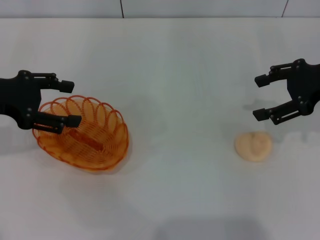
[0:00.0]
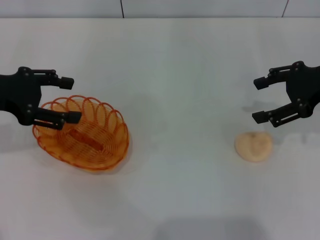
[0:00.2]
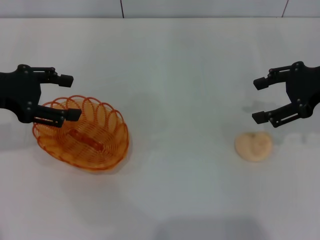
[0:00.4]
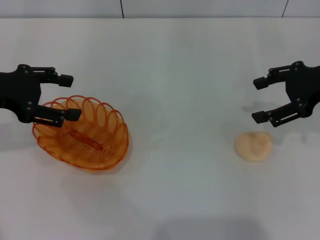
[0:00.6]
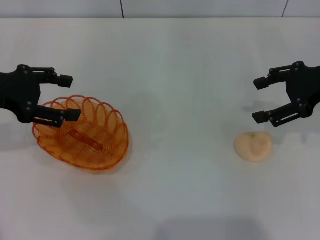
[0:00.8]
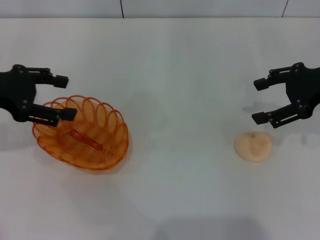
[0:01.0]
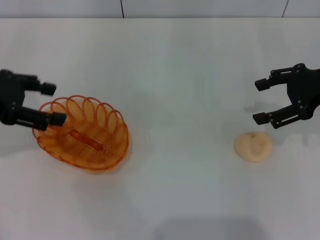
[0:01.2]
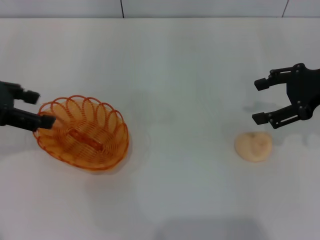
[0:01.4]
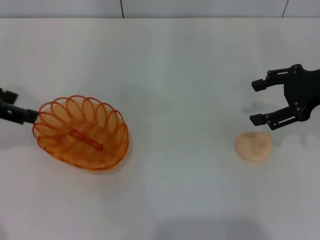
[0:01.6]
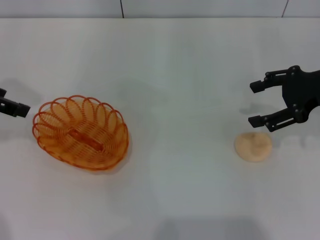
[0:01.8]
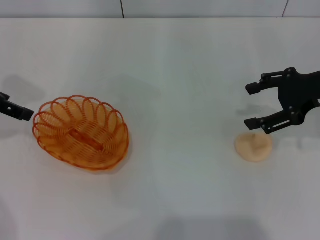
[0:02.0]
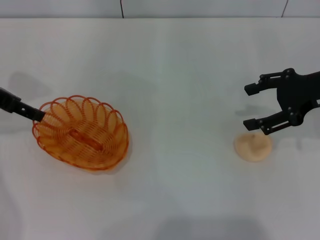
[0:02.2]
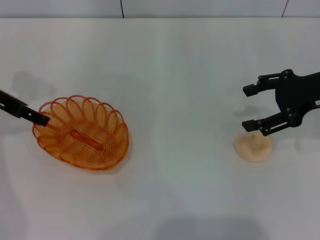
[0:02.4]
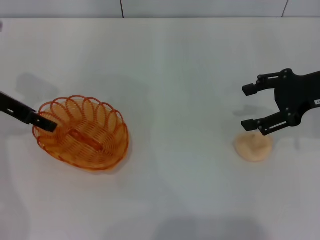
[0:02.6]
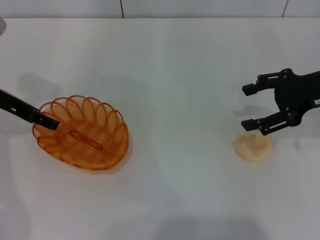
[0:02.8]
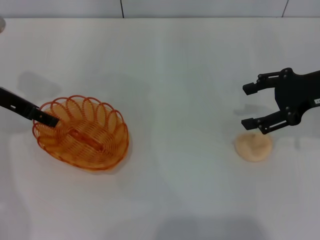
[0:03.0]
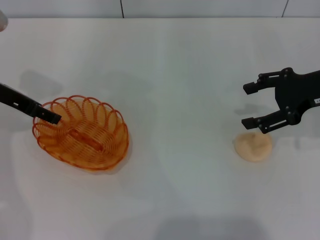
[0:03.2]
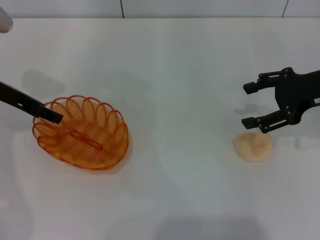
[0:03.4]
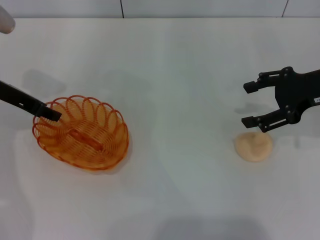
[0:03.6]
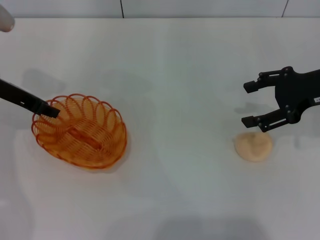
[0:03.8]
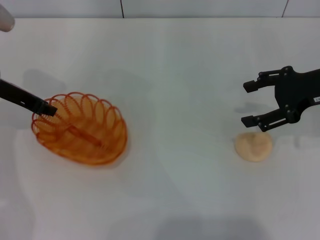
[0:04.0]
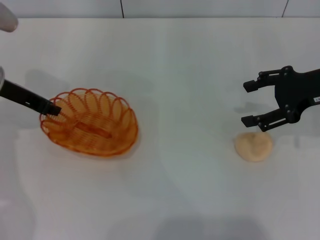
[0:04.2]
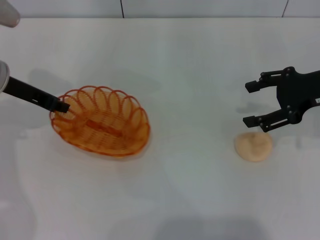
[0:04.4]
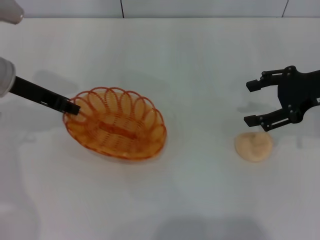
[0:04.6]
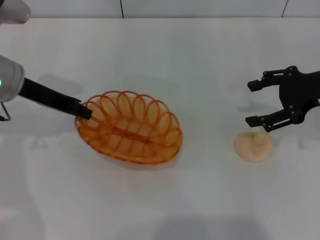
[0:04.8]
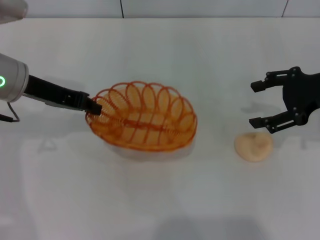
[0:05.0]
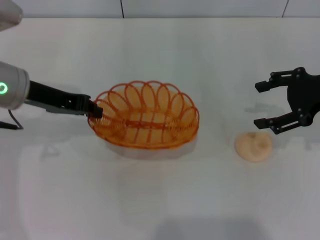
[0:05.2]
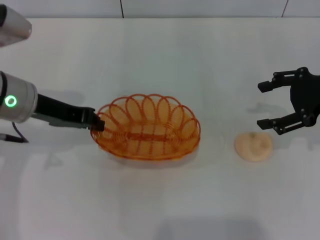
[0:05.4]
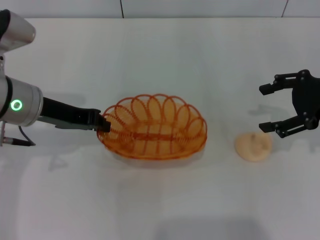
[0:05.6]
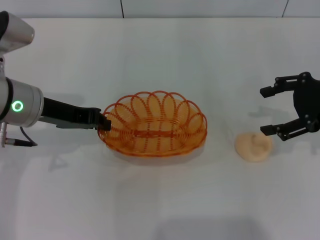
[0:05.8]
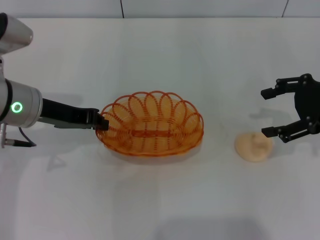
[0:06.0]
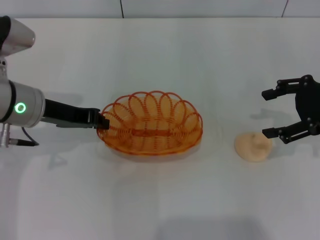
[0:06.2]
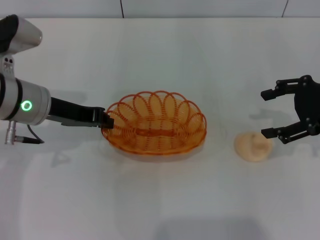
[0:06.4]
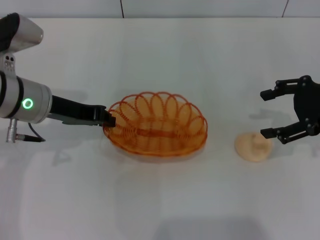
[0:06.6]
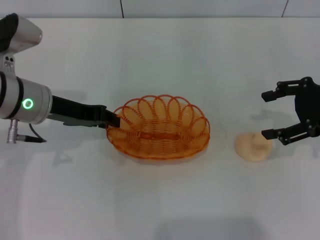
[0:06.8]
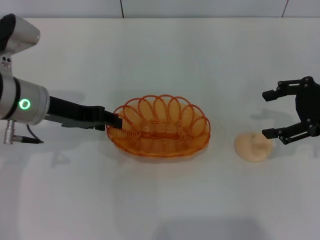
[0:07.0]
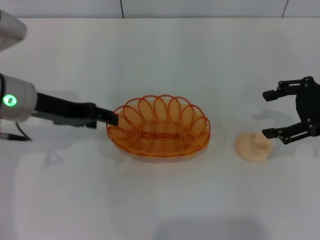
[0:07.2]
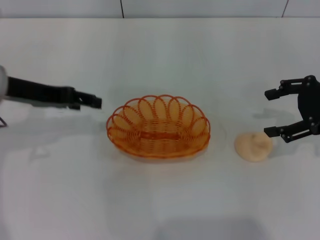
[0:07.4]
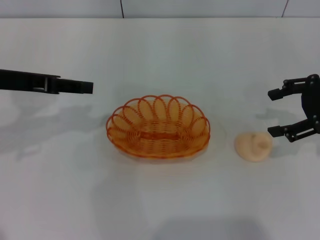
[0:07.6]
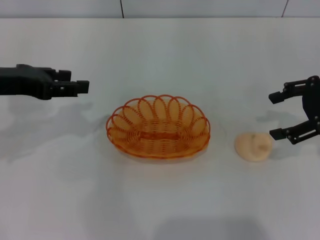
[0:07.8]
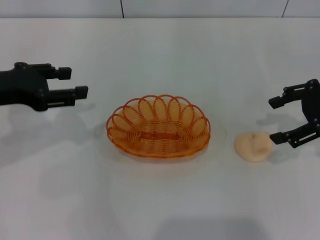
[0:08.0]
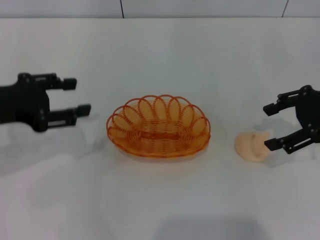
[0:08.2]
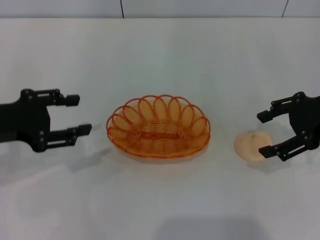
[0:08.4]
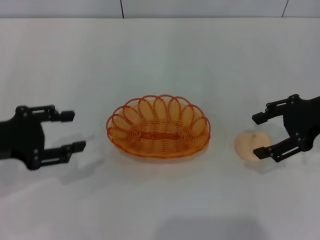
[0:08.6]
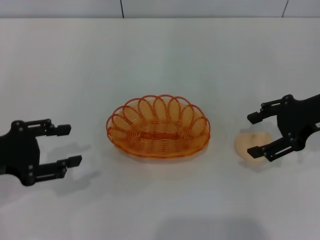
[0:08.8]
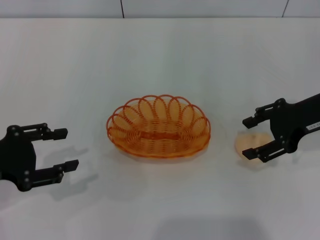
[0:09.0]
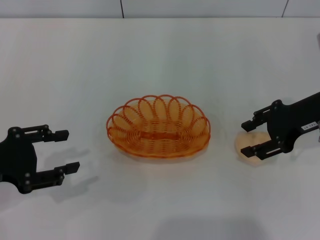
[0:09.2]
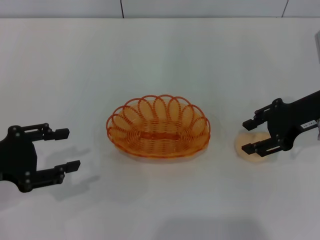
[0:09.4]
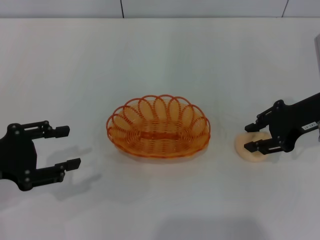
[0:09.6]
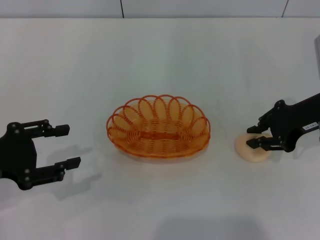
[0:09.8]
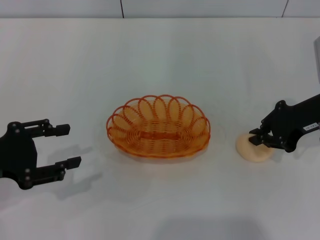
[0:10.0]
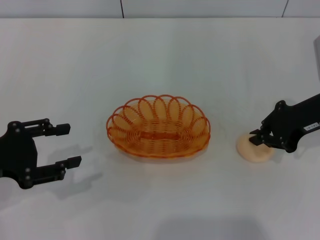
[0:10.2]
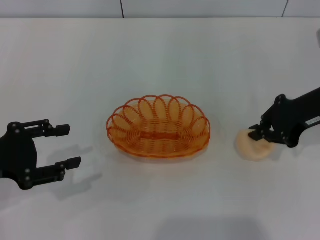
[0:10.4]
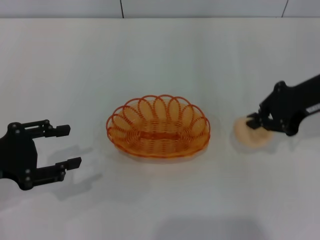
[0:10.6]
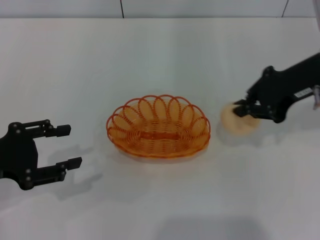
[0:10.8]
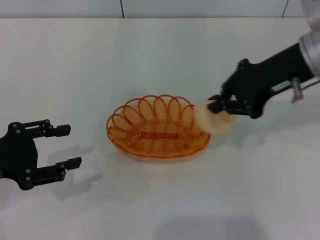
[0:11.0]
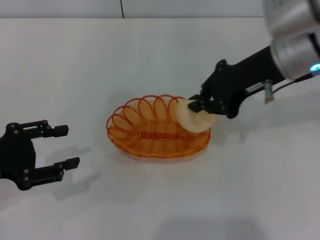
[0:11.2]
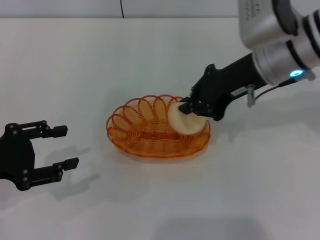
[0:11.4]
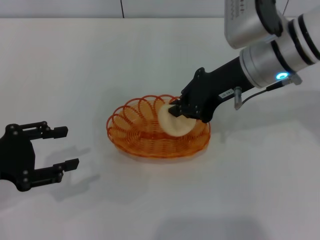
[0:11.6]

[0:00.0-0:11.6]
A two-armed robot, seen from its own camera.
Step, 0:00.0 to 0:04.4: Pick up the basket with the left gripper.
Step, 0:04.6 to 0:07.4: Place the basket in the center of view with the left gripper.
Step, 0:07.6 to 0:10.6: Pick up the egg yolk pastry with the right gripper.
0:01.4 to 0:02.8: The left gripper heads downward and forward, covering roughly 10 cm.
0:02.8 to 0:04.4: The left gripper closes its fingers.
0:04.4 to 0:05.8: The left gripper moves backward and to the right, approximately 10 cm.
0:05.8 to 0:07.2: The left gripper opens its fingers.
0:07.2 to 0:08.8: The left gripper shifts some 15 cm backward and to the left.
0:08.8 to 0:10.2: The right gripper closes.
0:10.2 to 0:11.6: The right gripper travels to the left and upward by roughly 15 cm.

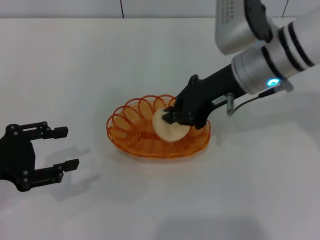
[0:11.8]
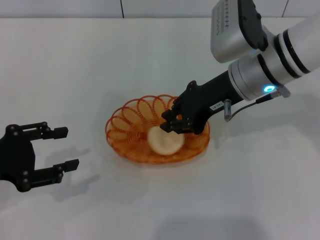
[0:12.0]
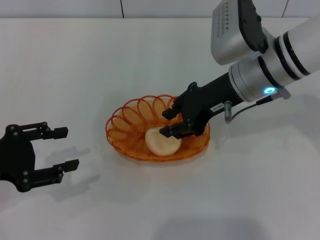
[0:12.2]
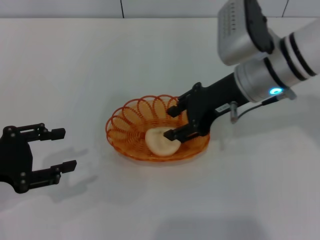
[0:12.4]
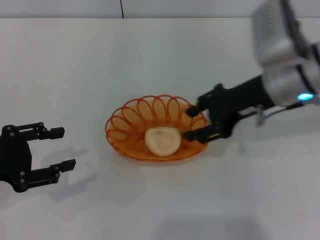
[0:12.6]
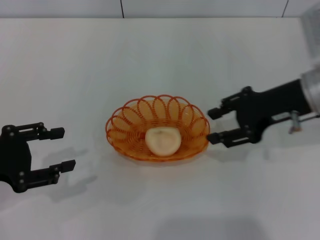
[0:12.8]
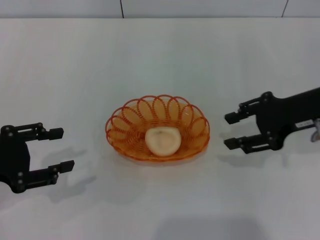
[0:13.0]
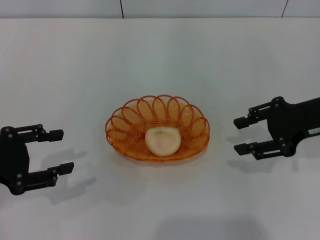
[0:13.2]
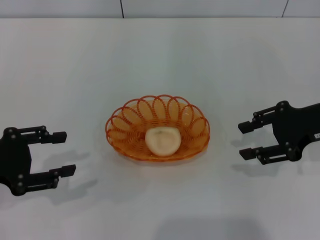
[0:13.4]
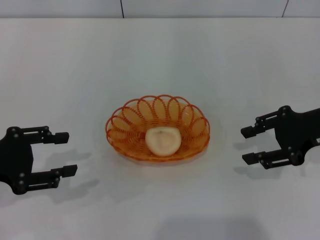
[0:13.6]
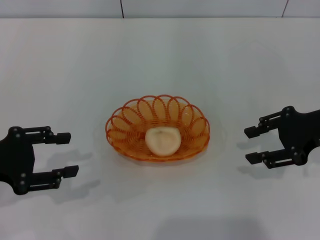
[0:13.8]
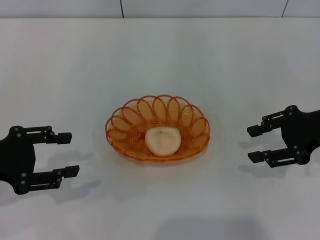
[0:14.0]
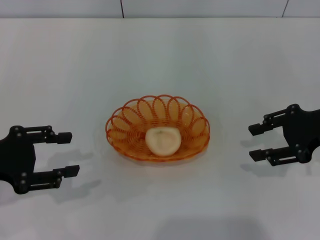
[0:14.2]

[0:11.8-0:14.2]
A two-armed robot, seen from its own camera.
0:11.8 to 0:13.0: The right gripper moves to the right, roughly 10 cm, and opens up.
0:13.0 to 0:14.2: There are only small adjustments of the grippers.

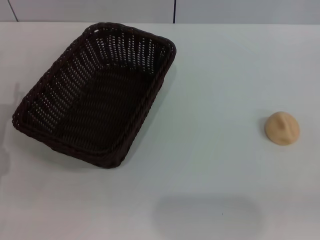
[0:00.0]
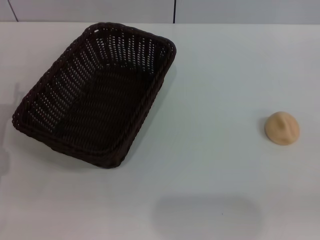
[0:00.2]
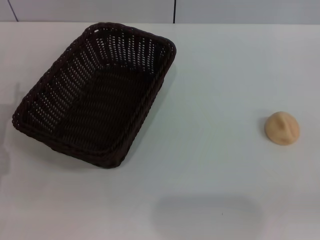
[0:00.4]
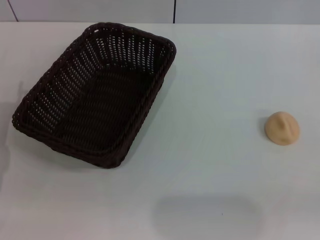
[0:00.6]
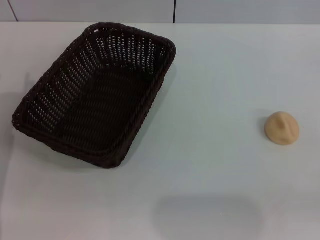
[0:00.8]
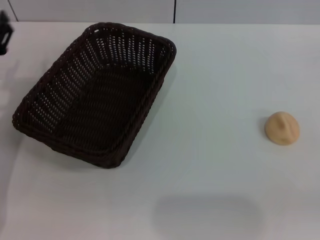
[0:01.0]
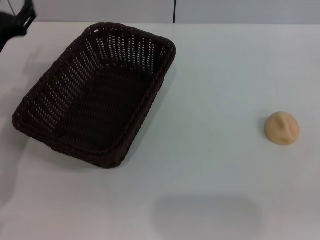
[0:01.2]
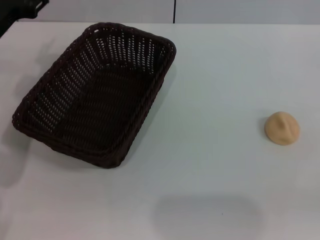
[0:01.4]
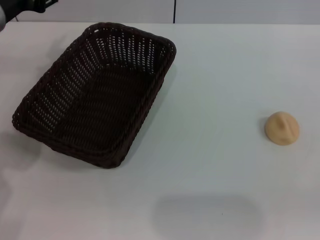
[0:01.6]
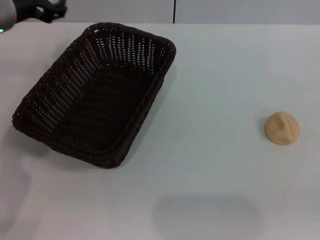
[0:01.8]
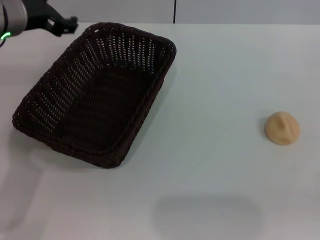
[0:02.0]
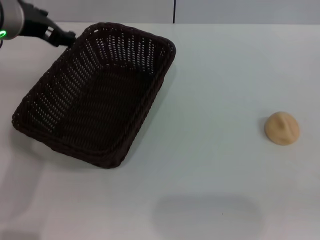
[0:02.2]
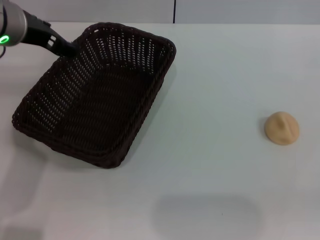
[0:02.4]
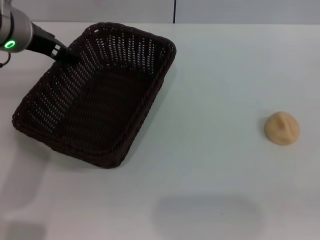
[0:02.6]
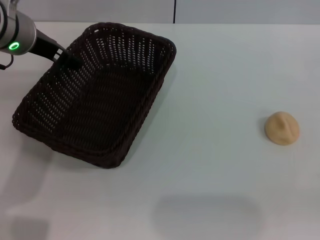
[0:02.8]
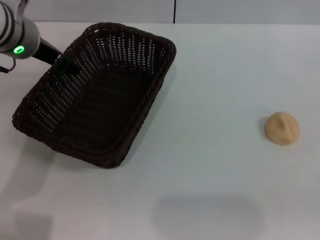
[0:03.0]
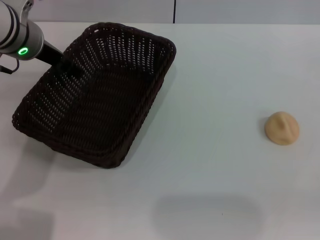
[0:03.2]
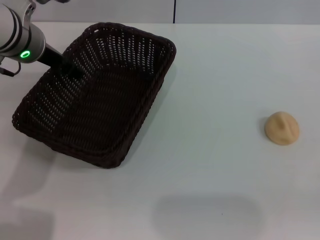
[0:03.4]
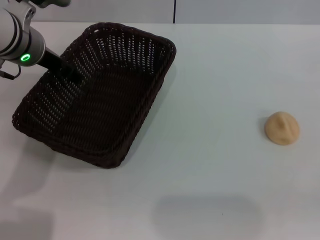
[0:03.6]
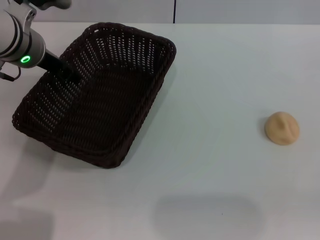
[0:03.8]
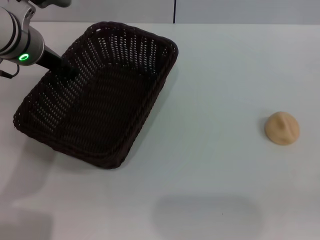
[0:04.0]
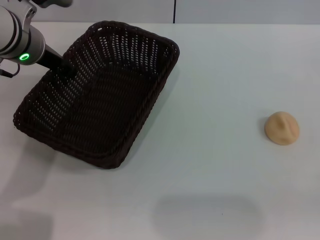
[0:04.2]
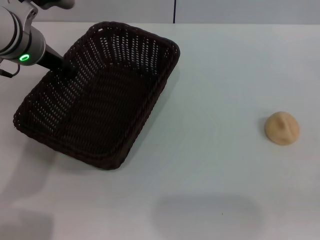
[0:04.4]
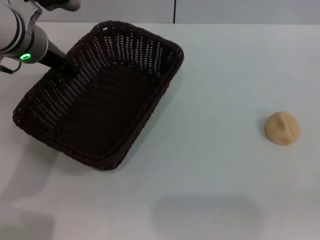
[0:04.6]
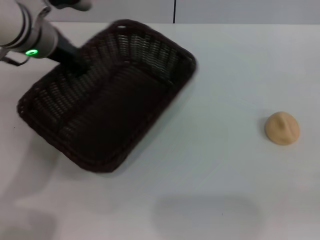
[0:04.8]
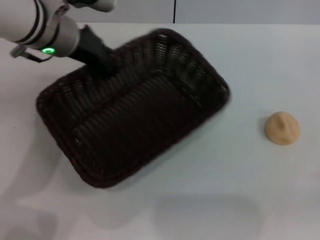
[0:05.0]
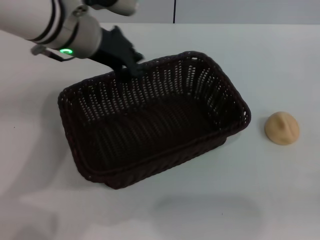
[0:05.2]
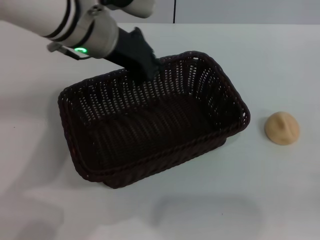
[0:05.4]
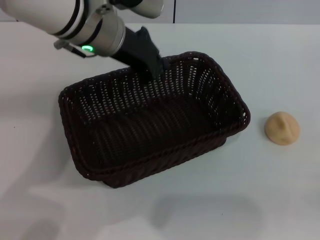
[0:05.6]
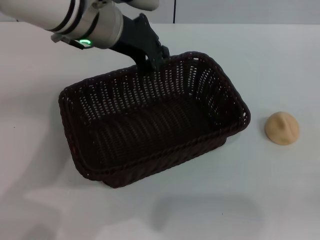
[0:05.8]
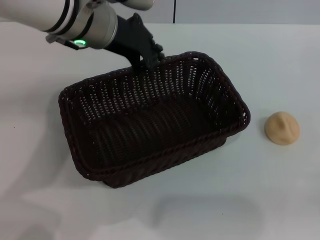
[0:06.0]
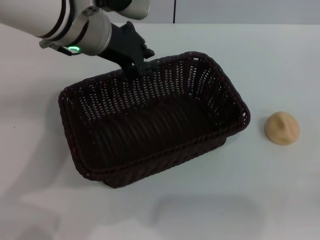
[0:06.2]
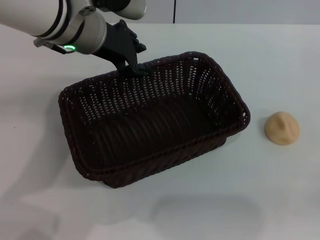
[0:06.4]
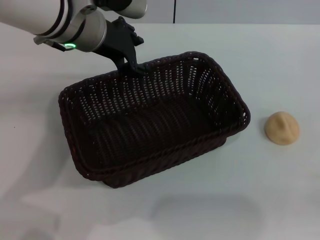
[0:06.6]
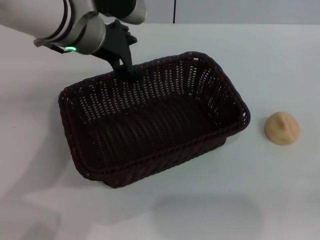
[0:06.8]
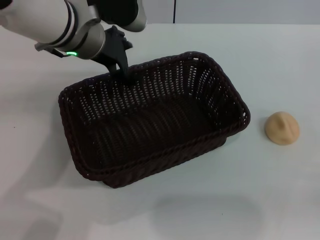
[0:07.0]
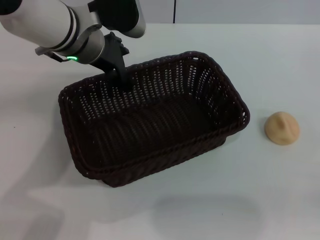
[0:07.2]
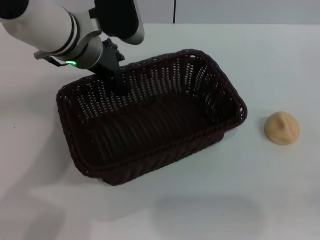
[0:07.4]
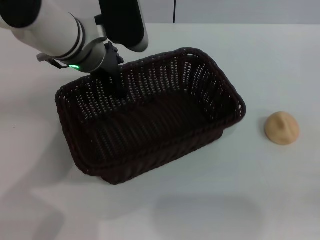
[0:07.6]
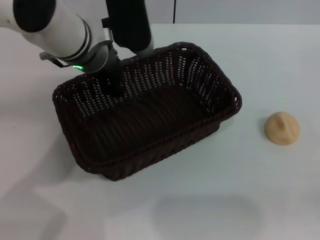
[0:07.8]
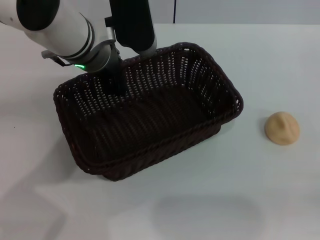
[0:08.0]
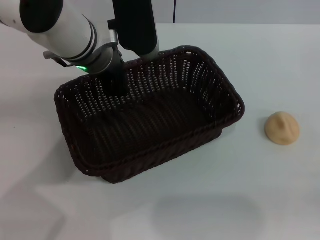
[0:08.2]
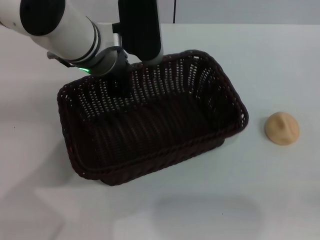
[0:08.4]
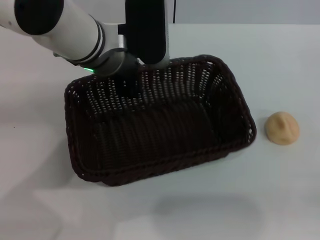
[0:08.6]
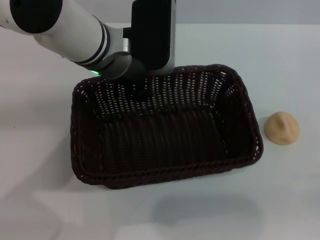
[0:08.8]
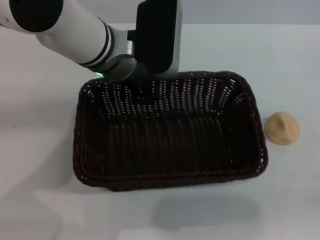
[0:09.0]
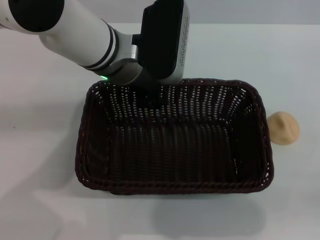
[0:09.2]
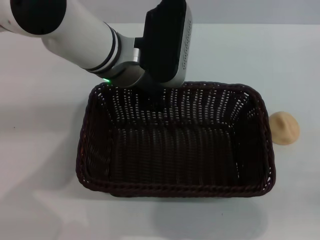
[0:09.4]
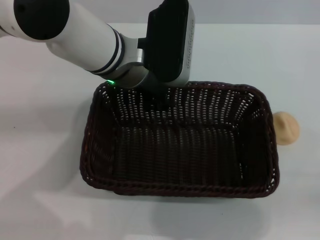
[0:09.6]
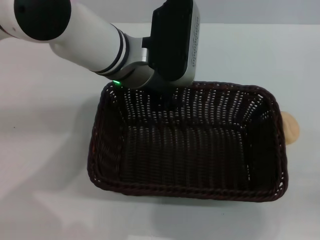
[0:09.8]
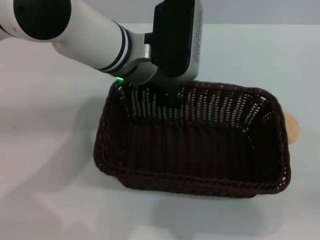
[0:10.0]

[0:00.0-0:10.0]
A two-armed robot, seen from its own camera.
0:00.0 to 0:01.4: The left gripper moves upward and forward, some 15 cm.
0:01.4 to 0:02.8: The left gripper travels to the right by roughly 5 cm.
0:02.8 to 0:04.2: The left gripper closes.
0:04.2 to 0:05.8: The left gripper is displaced to the right by some 10 cm, and closes its fingers.
0:05.8 to 0:07.2: The left gripper opens its fingers.
0:07.2 to 0:08.6: The grippers move only a little.
